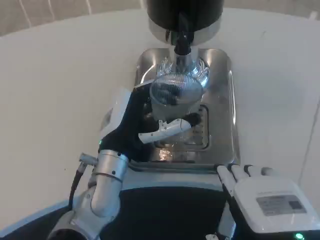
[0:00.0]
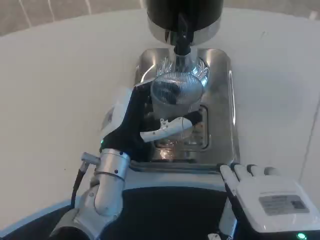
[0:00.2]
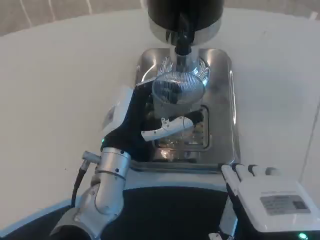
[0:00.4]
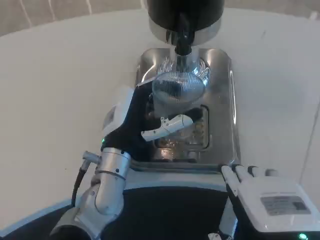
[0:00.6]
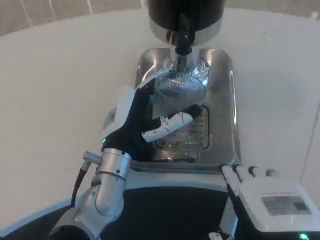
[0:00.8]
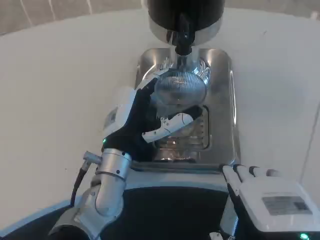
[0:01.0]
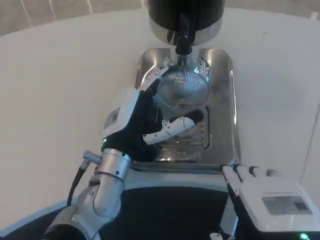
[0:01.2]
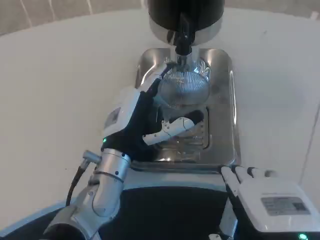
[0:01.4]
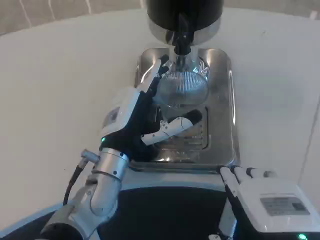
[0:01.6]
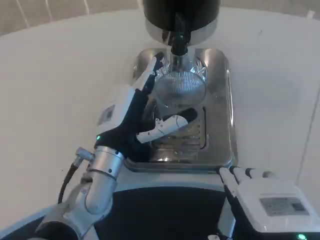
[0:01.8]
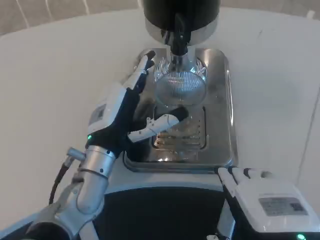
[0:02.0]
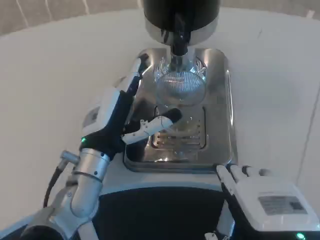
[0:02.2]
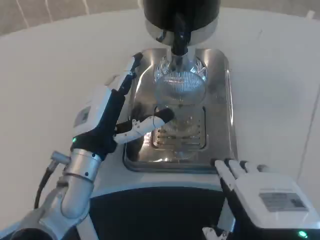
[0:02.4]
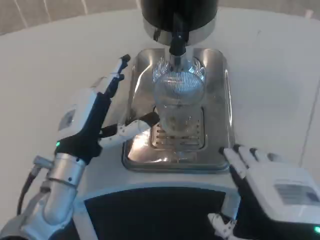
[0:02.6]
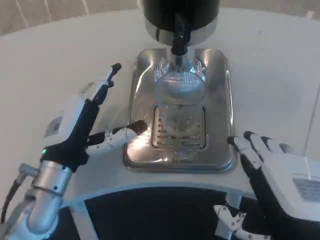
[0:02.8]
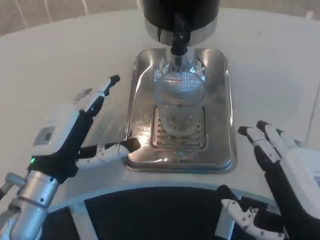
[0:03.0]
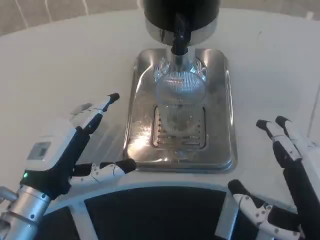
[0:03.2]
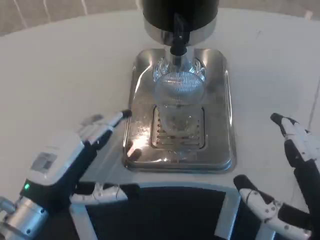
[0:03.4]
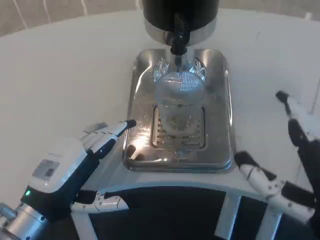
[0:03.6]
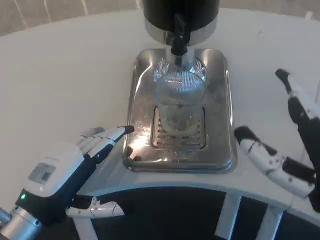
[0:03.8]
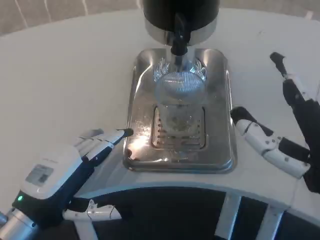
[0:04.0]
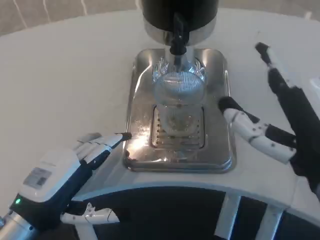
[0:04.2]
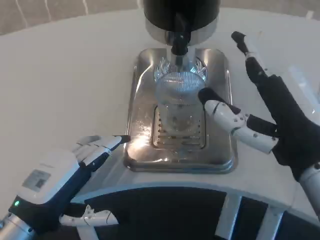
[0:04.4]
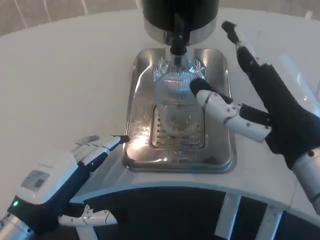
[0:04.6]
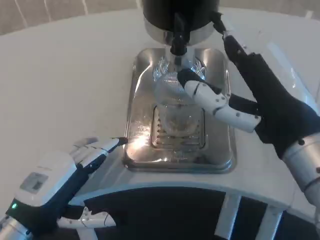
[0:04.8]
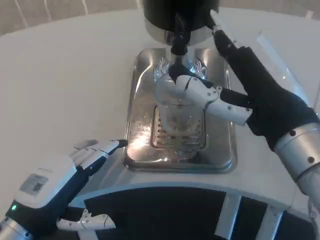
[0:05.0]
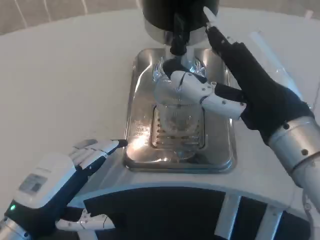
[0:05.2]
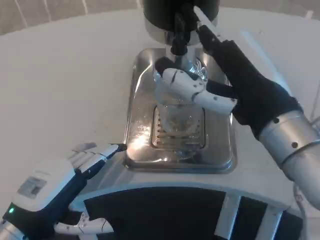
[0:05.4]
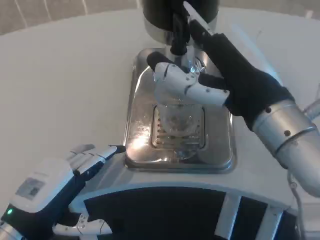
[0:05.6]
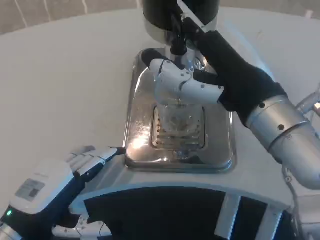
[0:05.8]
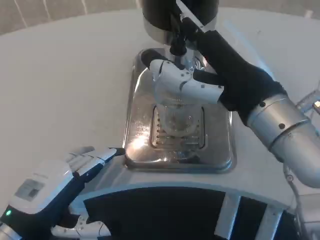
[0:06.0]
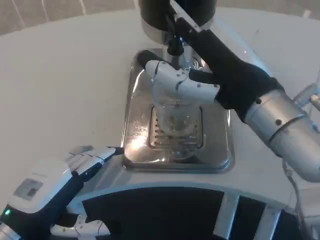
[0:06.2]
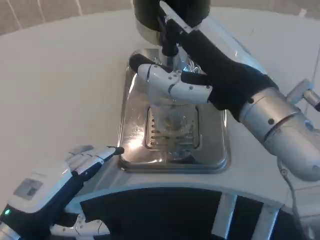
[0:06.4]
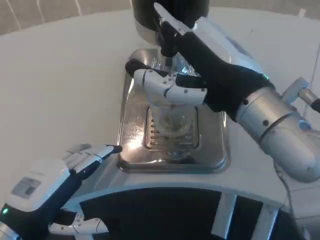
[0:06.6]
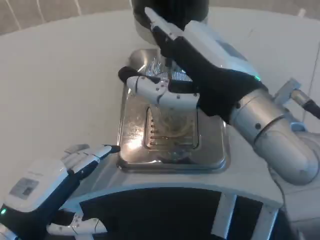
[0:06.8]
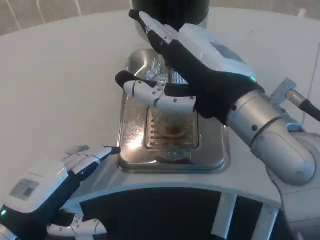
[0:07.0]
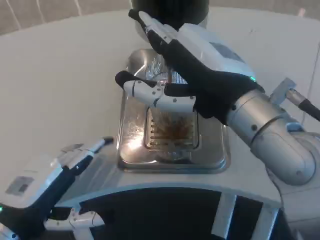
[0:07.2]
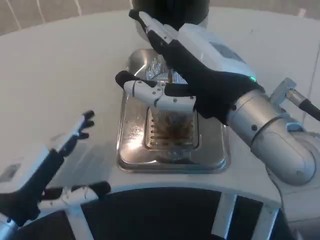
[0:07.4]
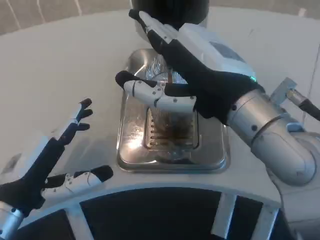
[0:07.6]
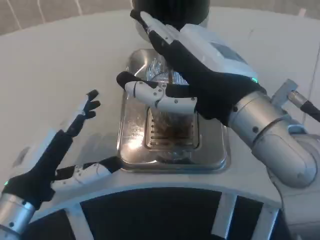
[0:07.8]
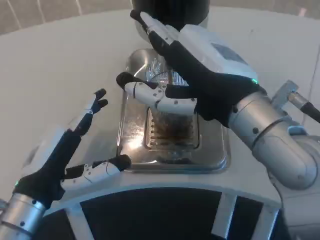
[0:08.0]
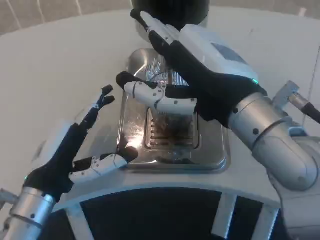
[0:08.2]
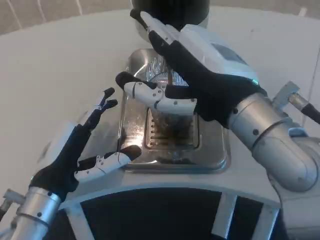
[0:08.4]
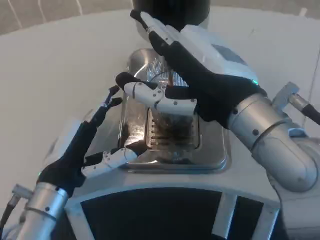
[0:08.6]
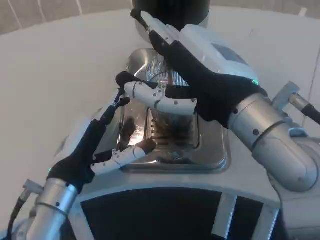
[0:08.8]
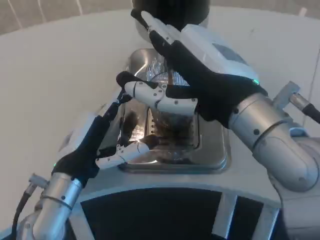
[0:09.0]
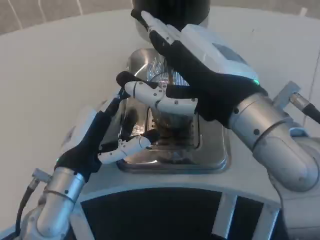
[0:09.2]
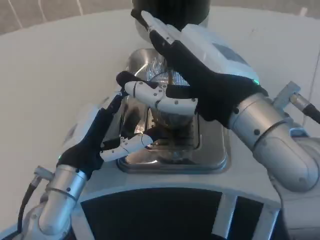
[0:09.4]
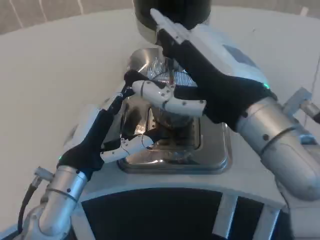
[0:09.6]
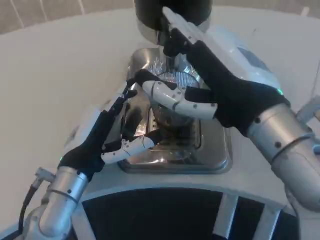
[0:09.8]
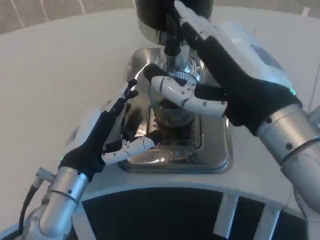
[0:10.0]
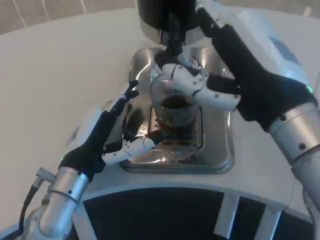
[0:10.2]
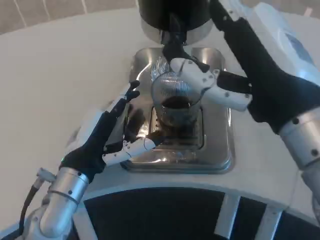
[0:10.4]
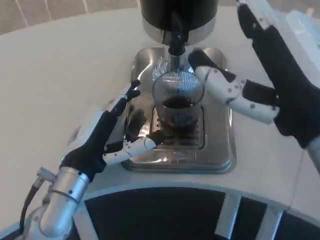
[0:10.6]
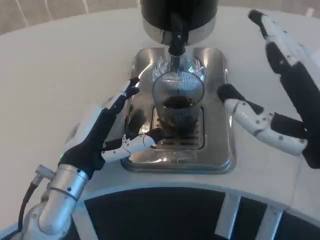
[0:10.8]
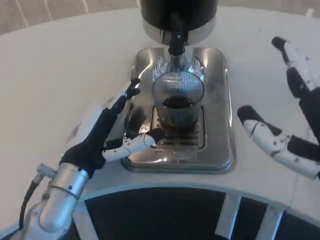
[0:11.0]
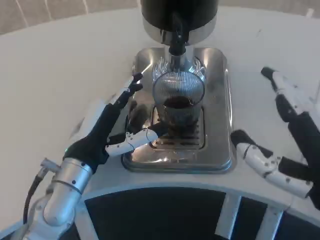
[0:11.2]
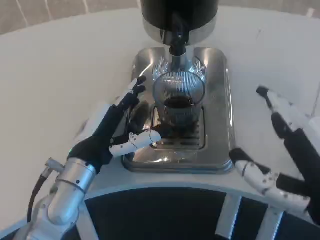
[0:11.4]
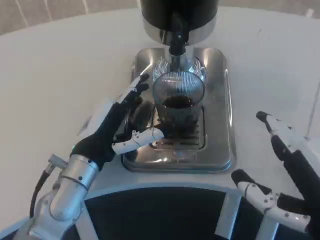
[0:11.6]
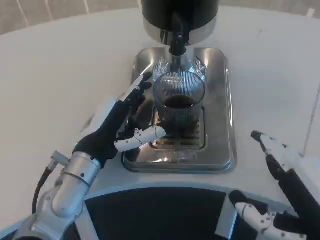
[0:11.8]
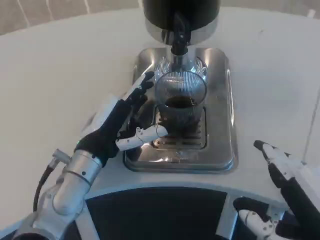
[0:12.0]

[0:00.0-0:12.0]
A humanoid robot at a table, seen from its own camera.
Task of the whole recording: Grasp the cup under the faucet to collect the drink, then remove the cup.
0:00.0 to 0:01.6: The hands move only a little.
0:01.6 to 0:03.0: The left hand goes roughly 10 cm to the left.
0:03.0 to 0:04.4: The right hand is displaced forward by approximately 5 cm. Meanwhile the left hand travels backward by roughly 5 cm.
0:04.4 to 0:06.0: The right hand goes some 5 cm forward.
0:07.6 to 0:09.0: The left hand moves to the right and forward, roughly 10 cm.
0:10.4 to 0:12.0: The right hand moves downward and backward, approximately 10 cm.

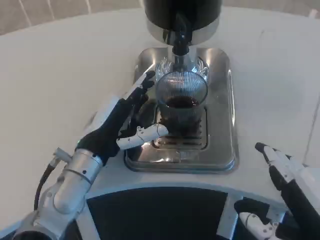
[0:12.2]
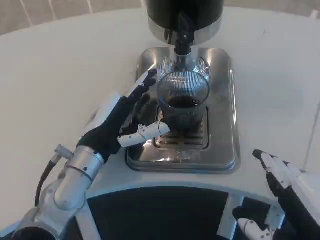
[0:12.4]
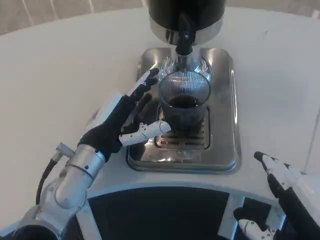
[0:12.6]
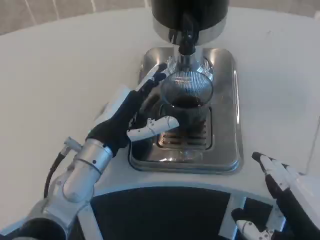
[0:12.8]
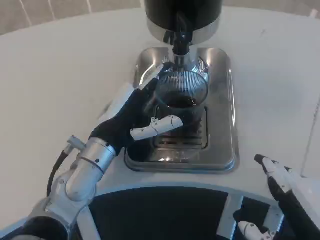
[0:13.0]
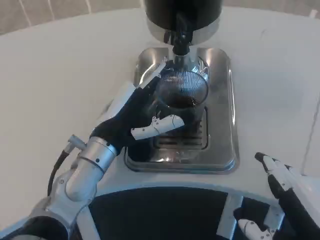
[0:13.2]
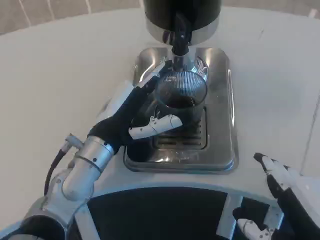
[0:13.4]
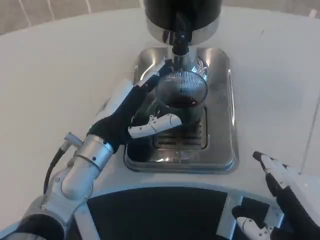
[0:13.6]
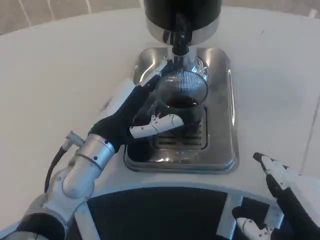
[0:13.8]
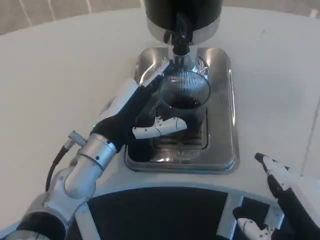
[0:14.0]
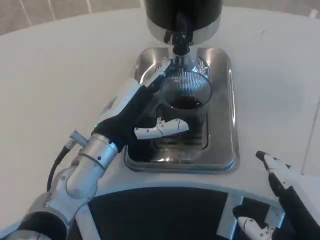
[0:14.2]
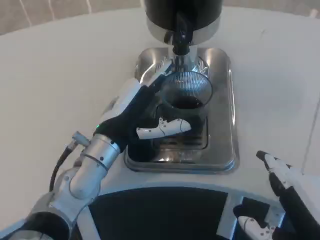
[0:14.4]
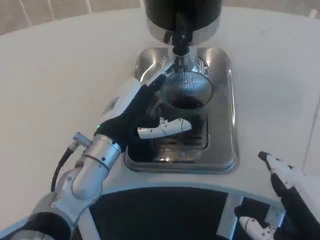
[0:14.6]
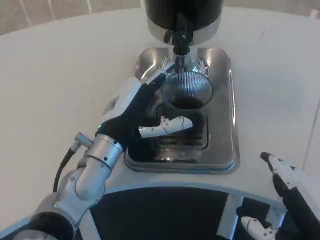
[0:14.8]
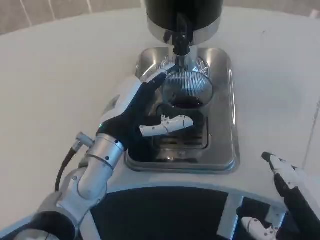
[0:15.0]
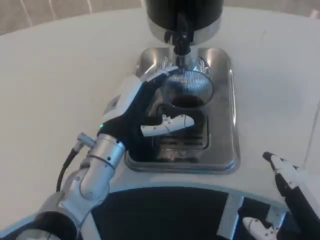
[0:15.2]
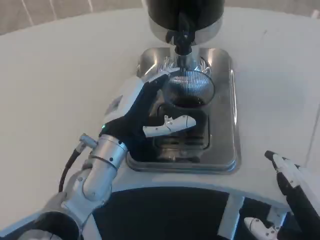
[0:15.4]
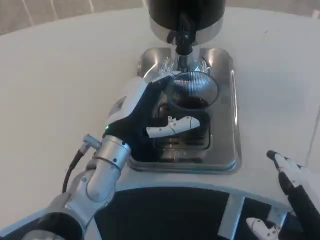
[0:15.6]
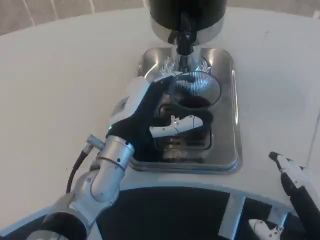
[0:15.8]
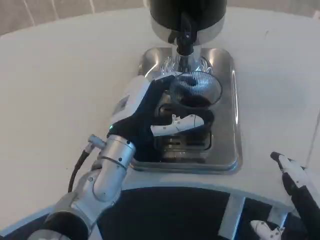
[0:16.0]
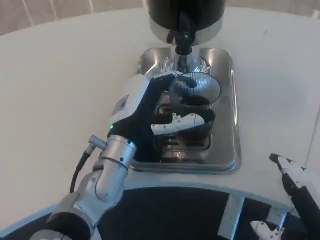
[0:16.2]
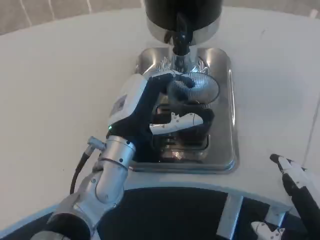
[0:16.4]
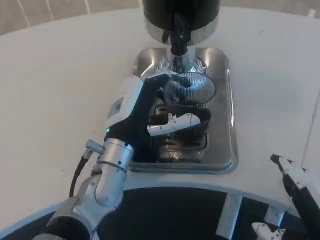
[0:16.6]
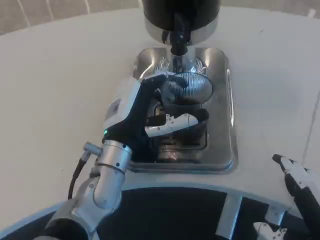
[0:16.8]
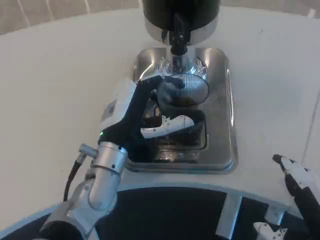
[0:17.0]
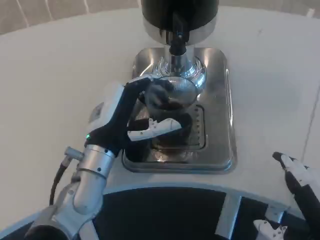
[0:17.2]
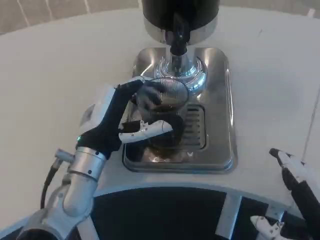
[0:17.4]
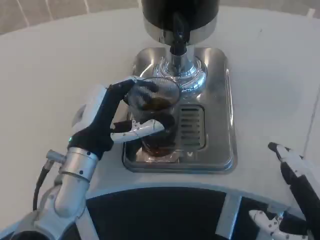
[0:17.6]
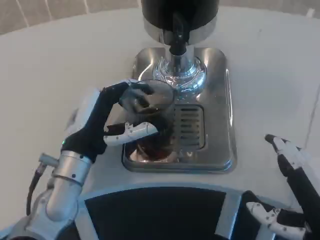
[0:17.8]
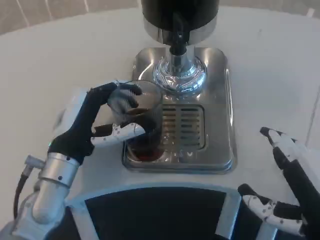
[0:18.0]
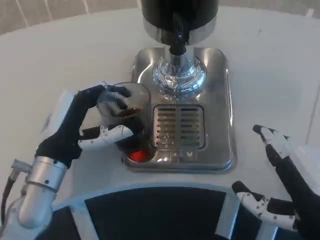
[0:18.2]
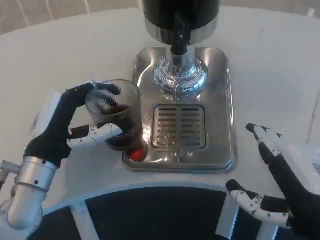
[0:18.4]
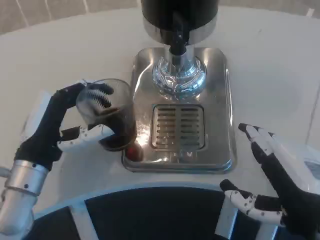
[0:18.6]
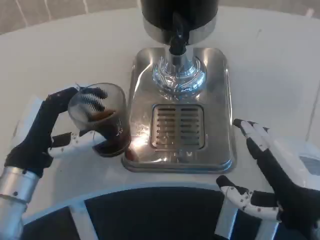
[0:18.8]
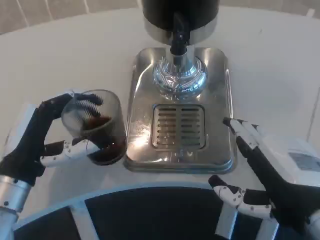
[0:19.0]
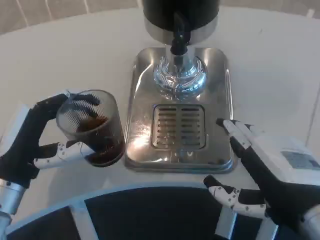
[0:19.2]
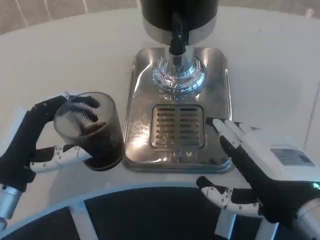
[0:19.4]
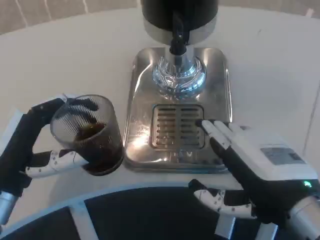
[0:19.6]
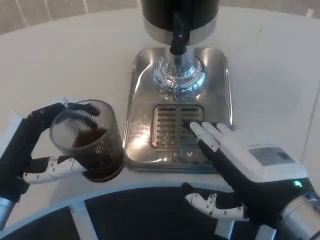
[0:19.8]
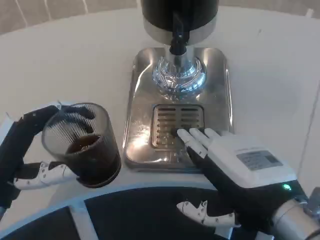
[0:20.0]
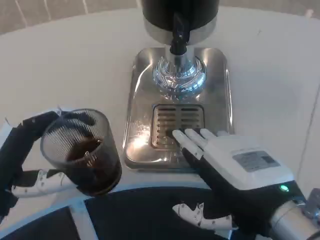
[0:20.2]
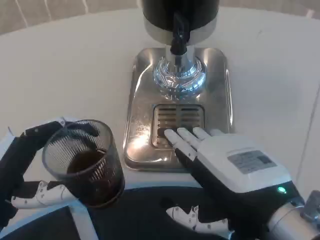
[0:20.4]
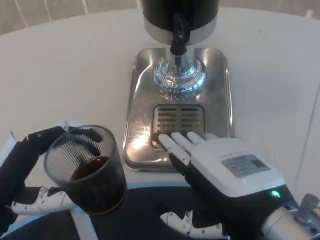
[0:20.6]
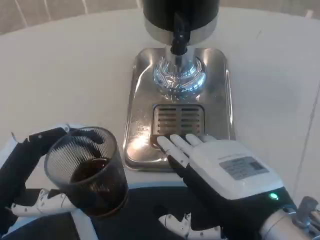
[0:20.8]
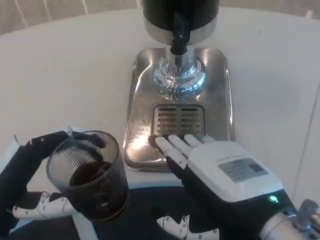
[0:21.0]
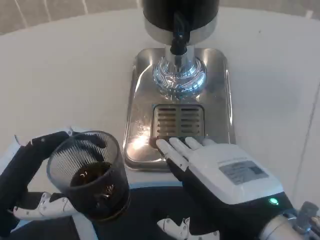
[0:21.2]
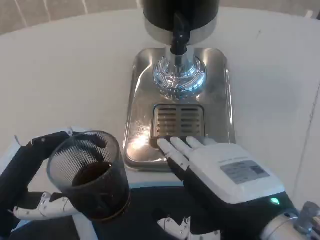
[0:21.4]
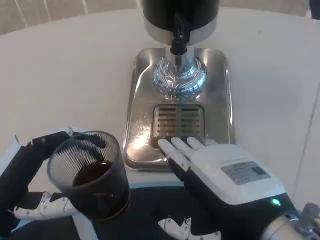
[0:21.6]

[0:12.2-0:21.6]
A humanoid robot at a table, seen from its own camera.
Task of the whole recording: Grasp the cup under the faucet to collect the drink, then remove the cup.
0:12.2 to 0:17.0: The hands move only a little.
0:17.0 to 0:18.4: The left hand is displaced to the left by some 10 cm.
0:18.4 to 0:20.0: The left hand goes approximately 5 cm backward.

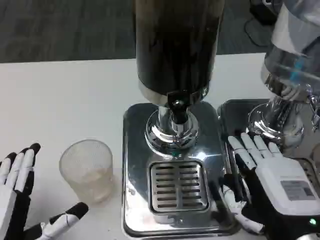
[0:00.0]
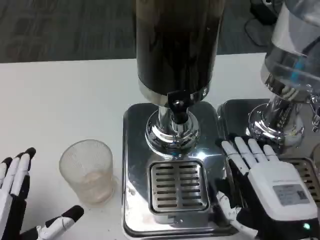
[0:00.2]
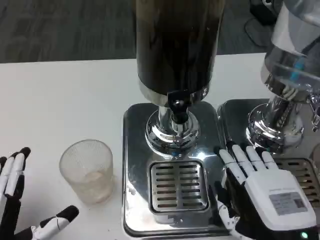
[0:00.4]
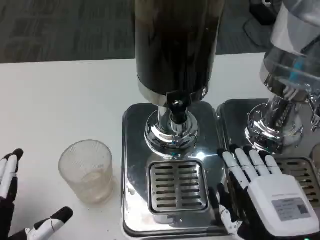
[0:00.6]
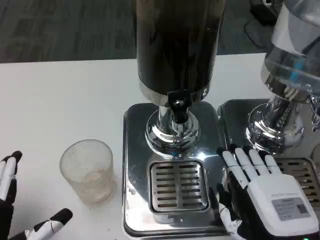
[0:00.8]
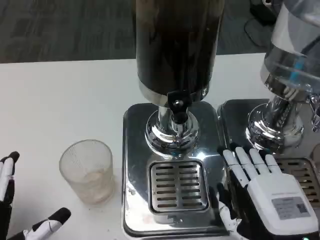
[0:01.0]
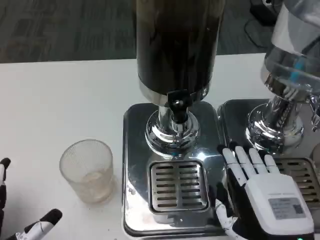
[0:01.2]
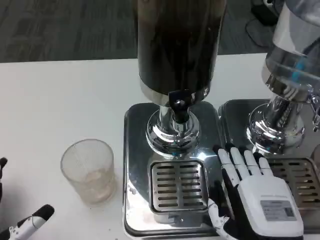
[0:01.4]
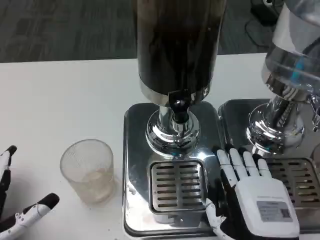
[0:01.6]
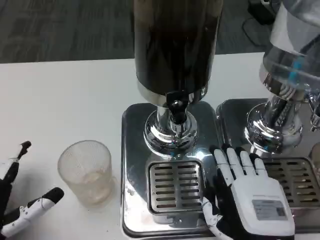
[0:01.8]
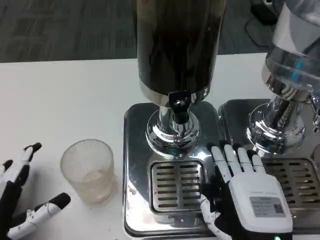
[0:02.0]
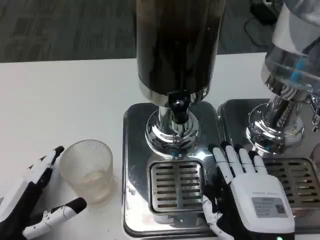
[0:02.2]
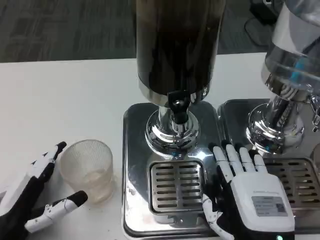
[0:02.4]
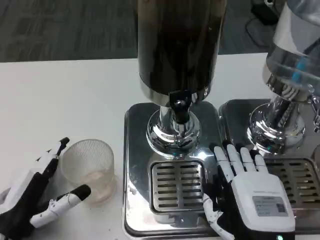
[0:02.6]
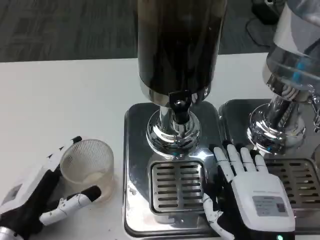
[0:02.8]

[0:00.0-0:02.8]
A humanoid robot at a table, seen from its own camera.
Task of the whole recording: Grasp the cup under the faucet to collect the drink, then remove the cup.
0:01.4 to 0:02.8: The left hand is displaced forward by some 5 cm.
